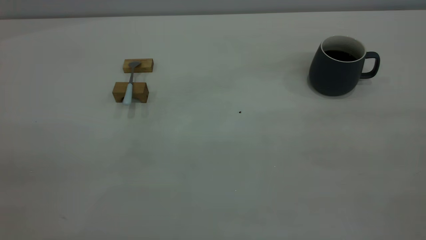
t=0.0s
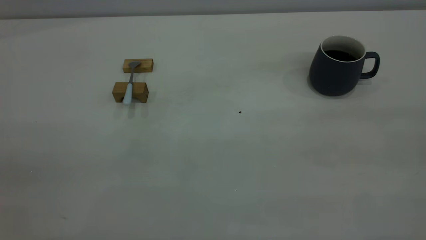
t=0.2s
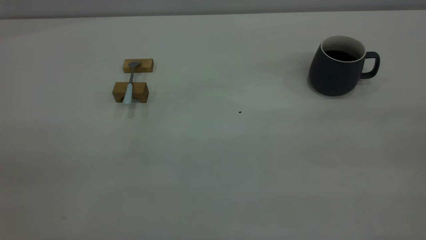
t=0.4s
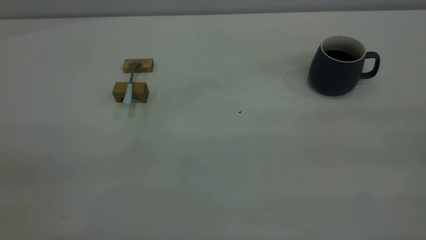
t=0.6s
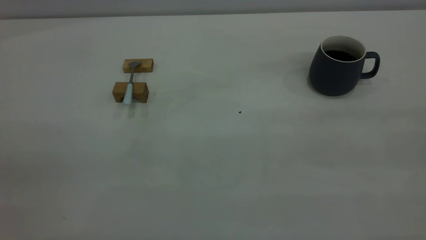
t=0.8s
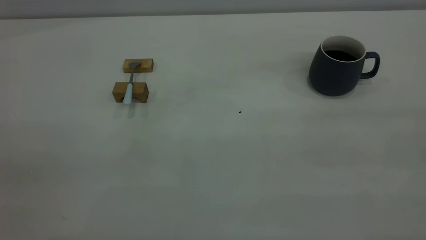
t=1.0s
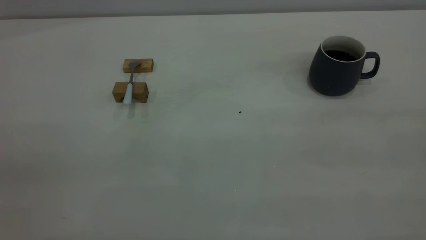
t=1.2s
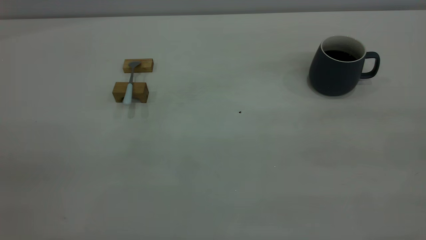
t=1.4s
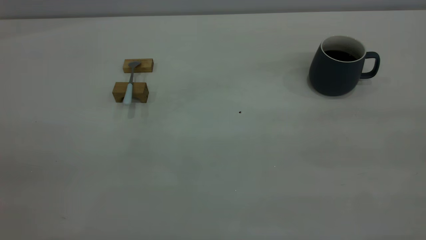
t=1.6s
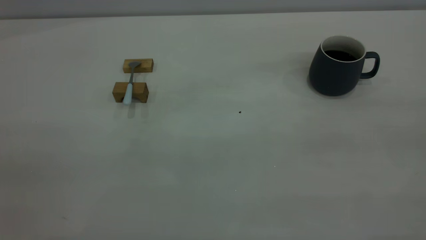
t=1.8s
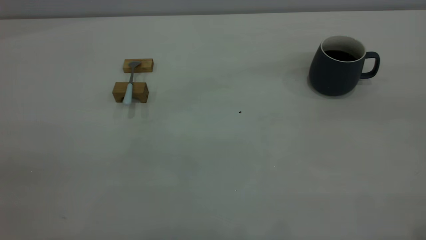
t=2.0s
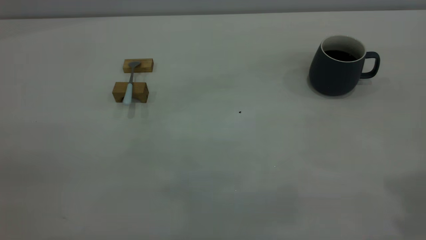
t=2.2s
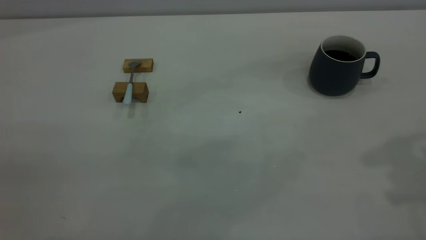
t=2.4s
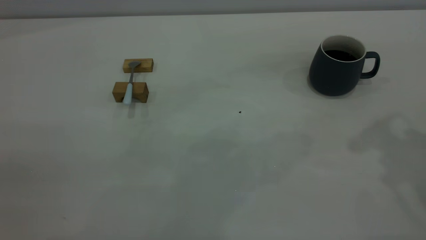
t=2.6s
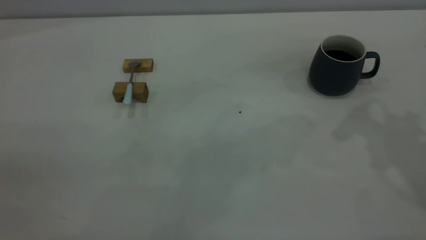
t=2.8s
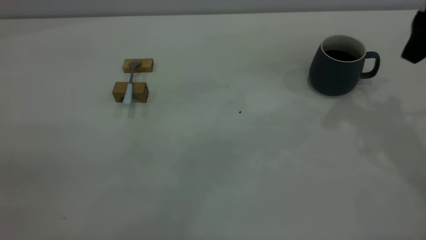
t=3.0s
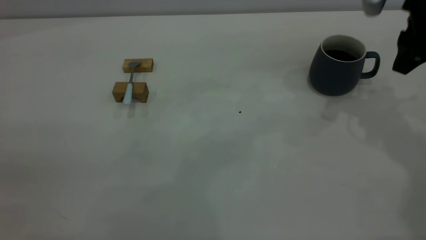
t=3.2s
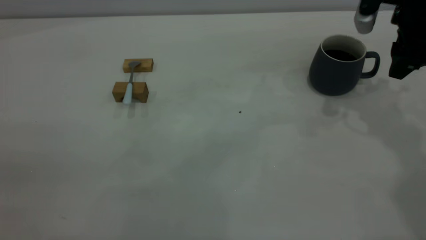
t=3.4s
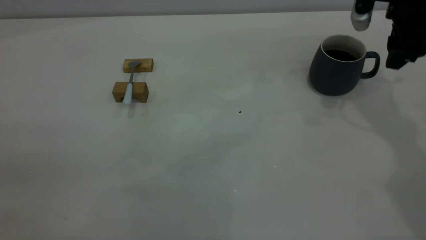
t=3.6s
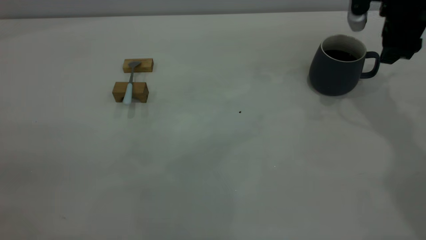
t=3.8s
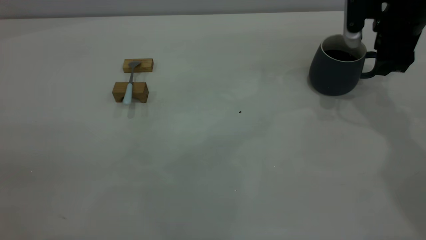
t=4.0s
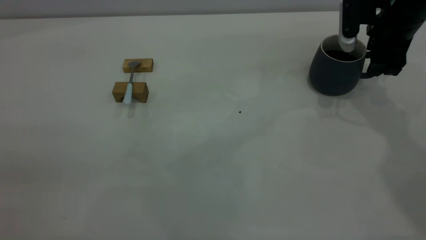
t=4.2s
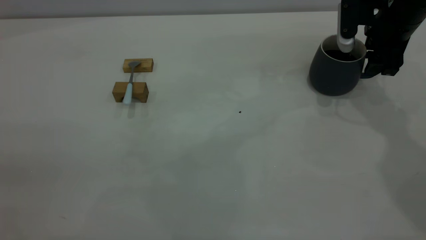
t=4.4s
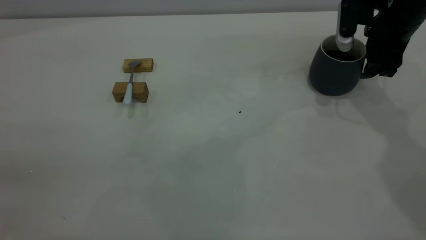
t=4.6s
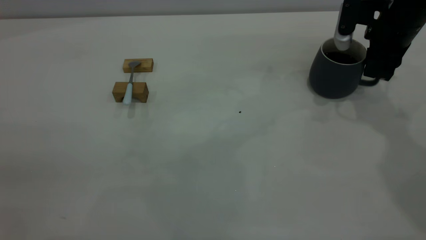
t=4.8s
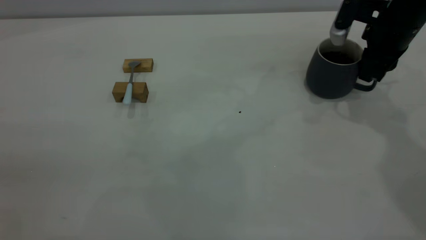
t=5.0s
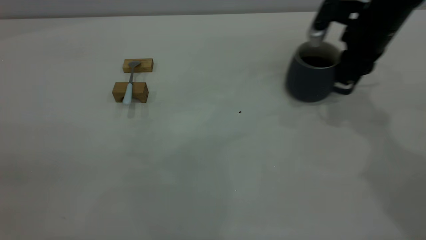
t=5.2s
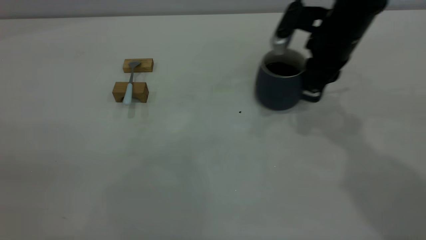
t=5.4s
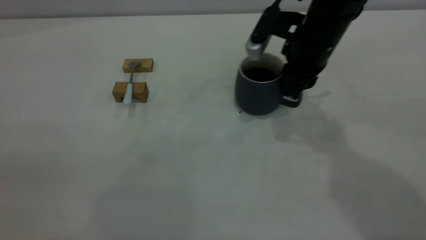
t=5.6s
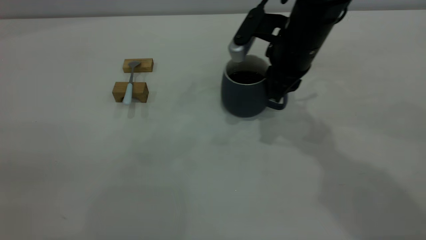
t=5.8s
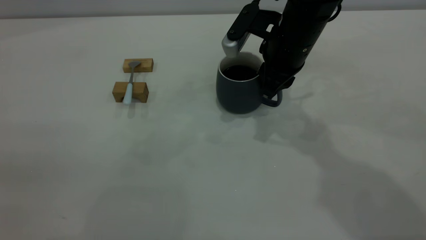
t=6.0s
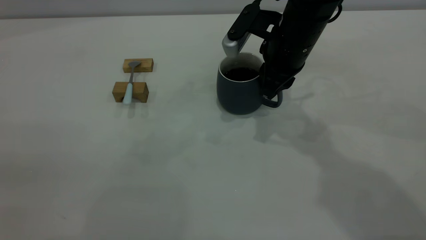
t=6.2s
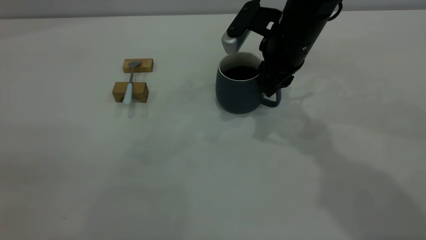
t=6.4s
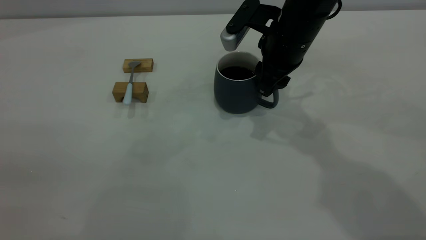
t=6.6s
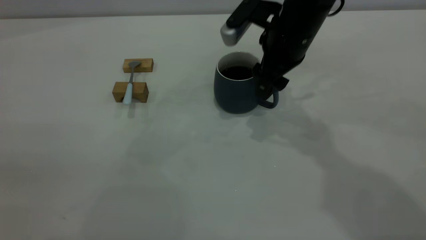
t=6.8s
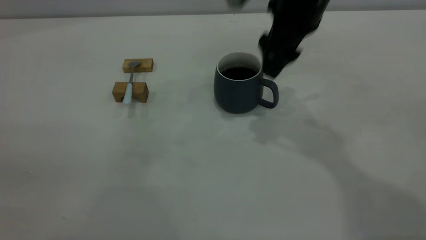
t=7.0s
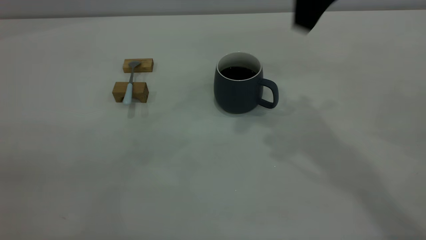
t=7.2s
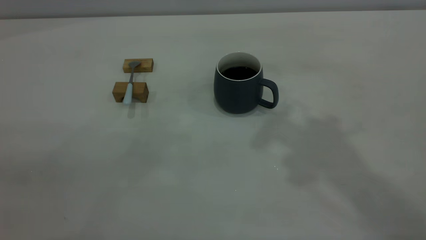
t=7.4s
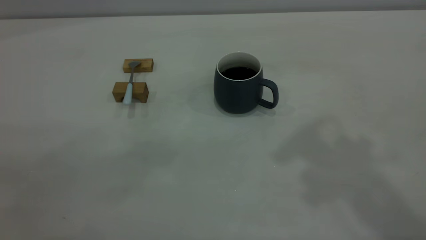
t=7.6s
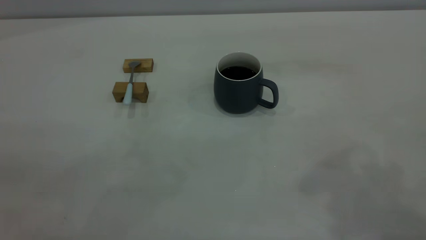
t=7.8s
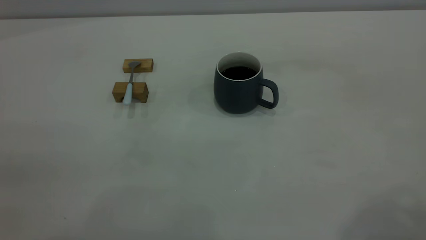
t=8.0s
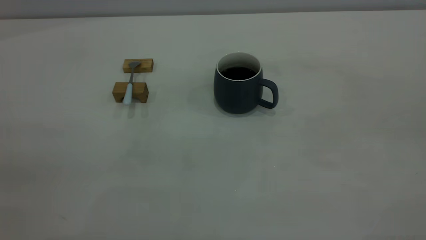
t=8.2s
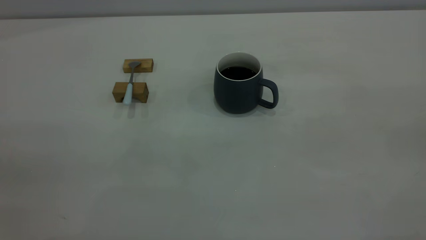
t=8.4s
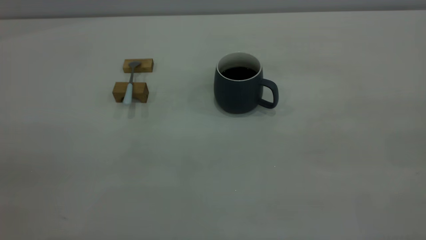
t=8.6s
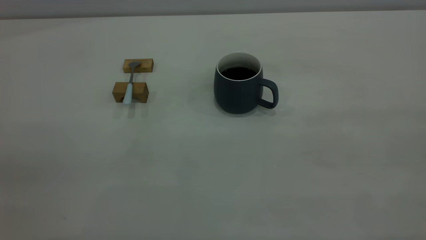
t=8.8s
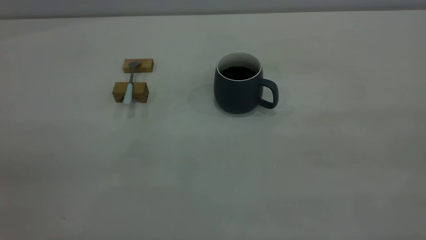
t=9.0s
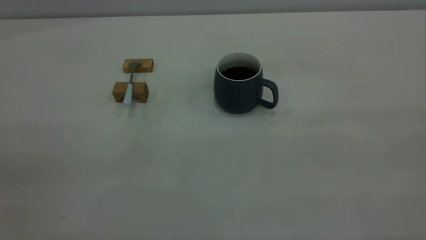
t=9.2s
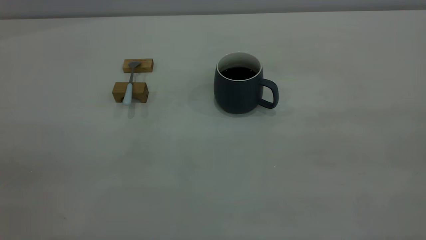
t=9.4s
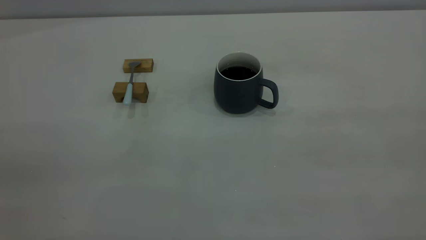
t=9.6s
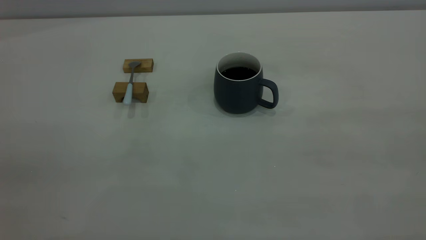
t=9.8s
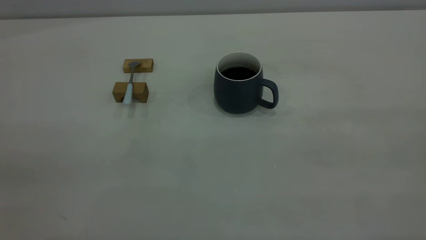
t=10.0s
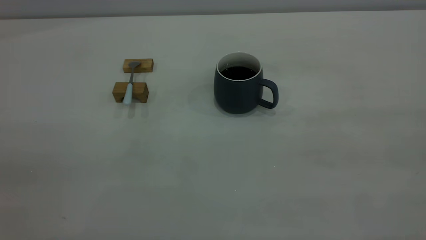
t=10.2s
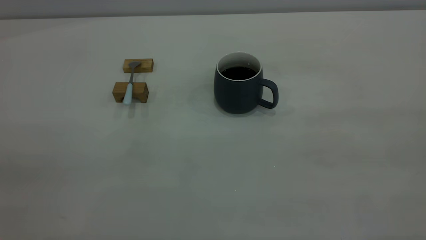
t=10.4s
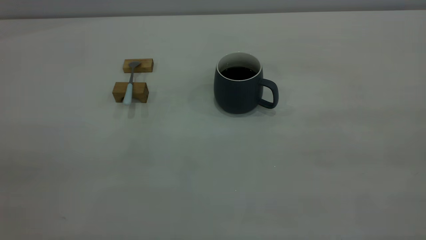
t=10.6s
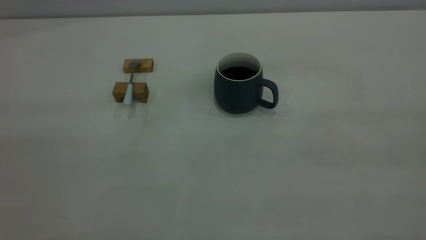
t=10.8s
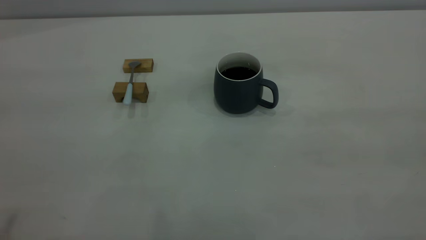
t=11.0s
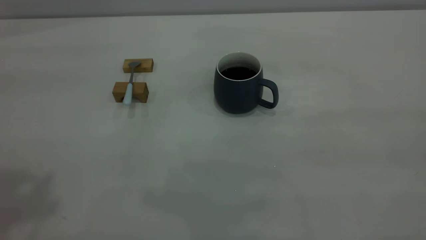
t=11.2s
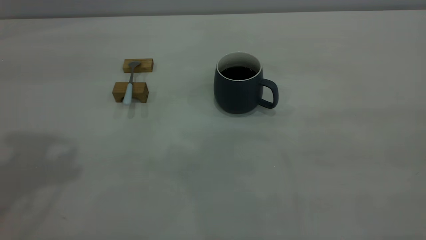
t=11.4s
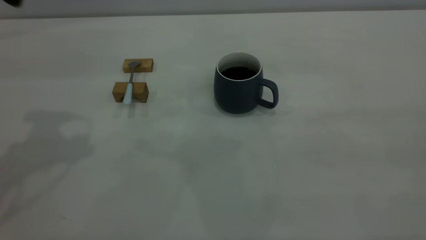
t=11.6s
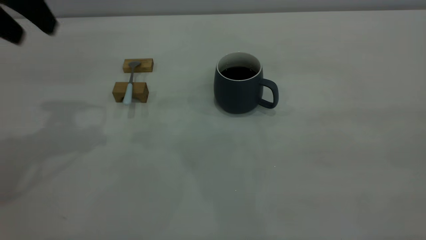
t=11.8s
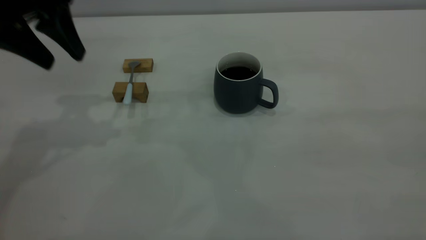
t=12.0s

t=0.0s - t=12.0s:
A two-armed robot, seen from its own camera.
Step, t=0.0s - t=7.0s: Move the cup with coffee to the center of view.
t=0.0s - t=1.6s: Both grippers stay put.
t=1.6s - t=3.0s: The right gripper travels forward by about 35 cm.
t=3.0s - t=4.4s: The right gripper moves downward and forward, roughly 15 cm.
t=4.4s - t=6.0s: The right gripper travels to the left by approximately 15 cm, and closes up.
t=6.0s - t=7.6s: The right gripper moves upward and backward, about 35 cm, and opens up.
t=10.4s - t=12.0s: The left gripper heads forward, covering approximately 35 cm.

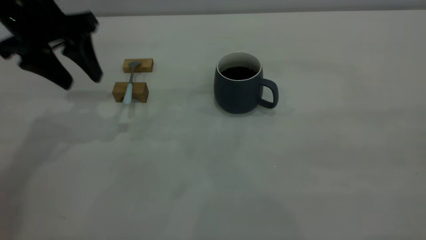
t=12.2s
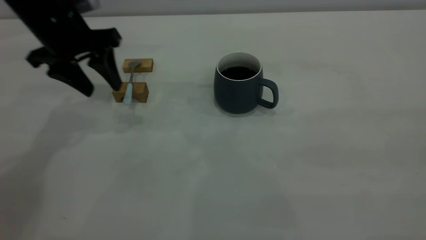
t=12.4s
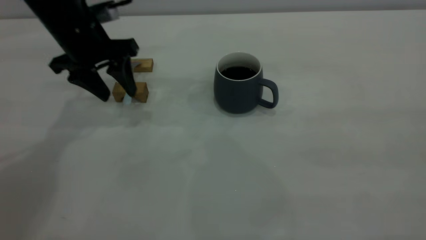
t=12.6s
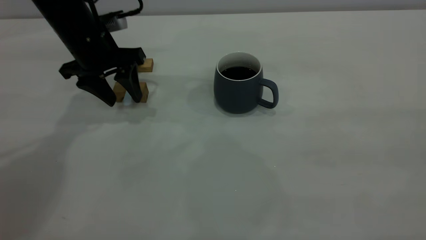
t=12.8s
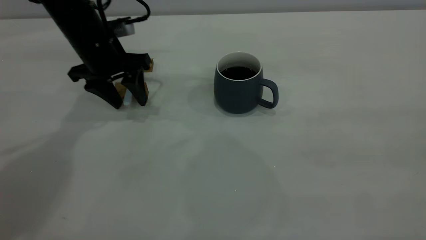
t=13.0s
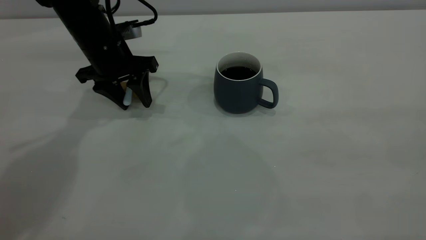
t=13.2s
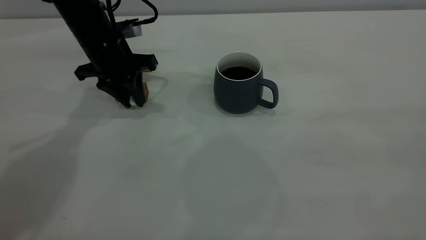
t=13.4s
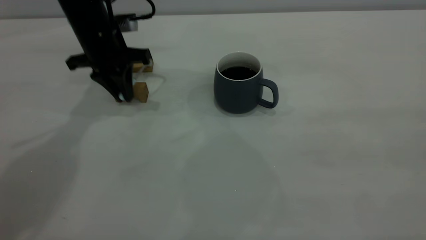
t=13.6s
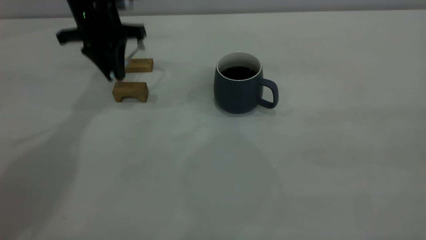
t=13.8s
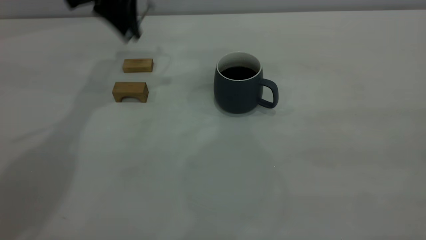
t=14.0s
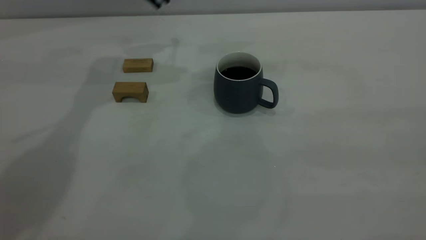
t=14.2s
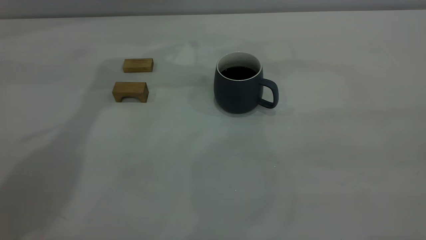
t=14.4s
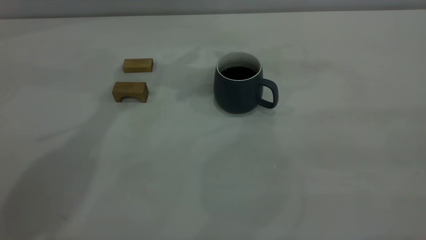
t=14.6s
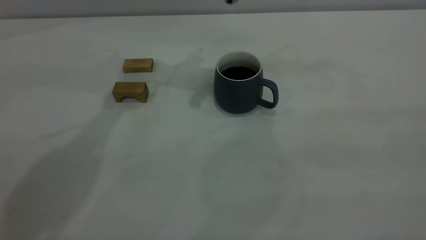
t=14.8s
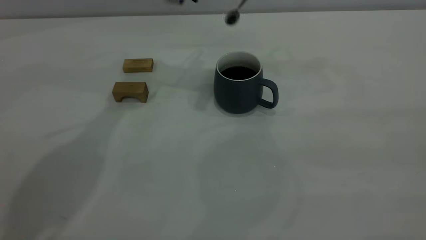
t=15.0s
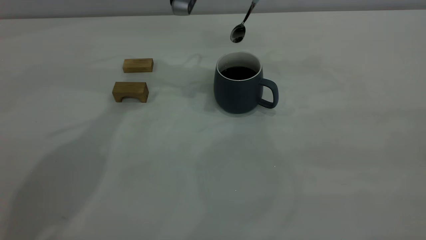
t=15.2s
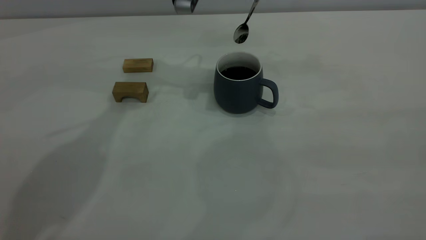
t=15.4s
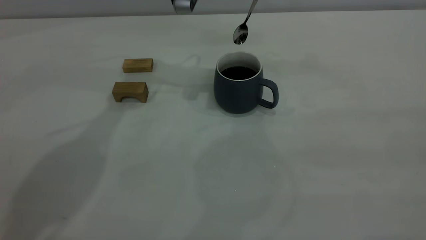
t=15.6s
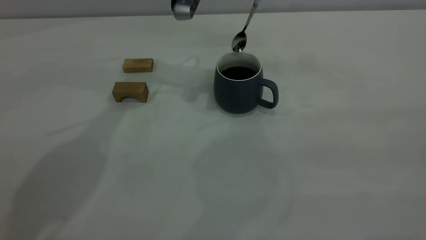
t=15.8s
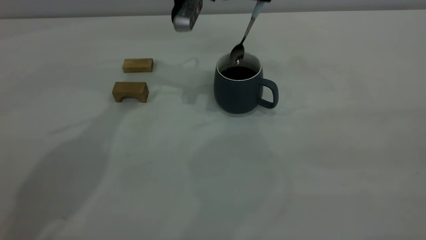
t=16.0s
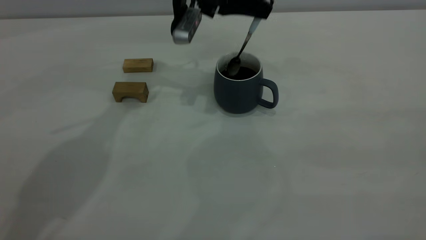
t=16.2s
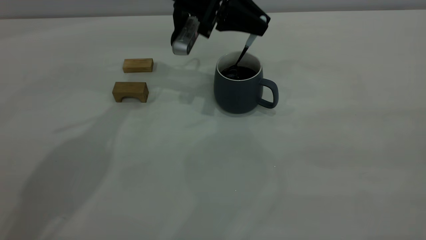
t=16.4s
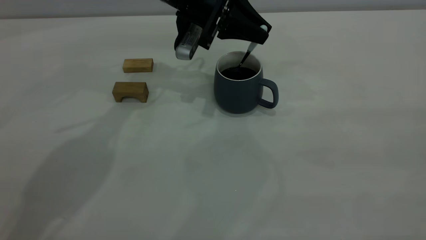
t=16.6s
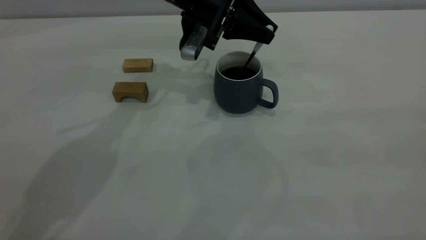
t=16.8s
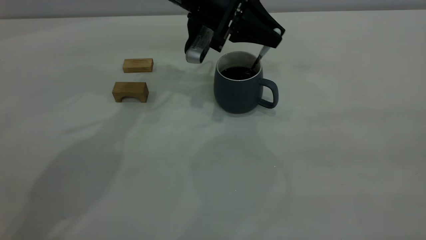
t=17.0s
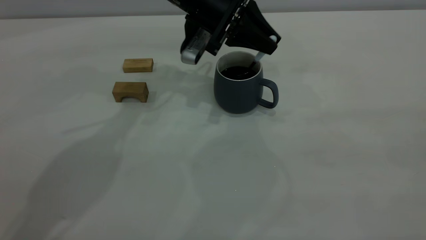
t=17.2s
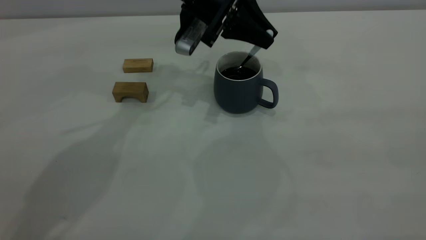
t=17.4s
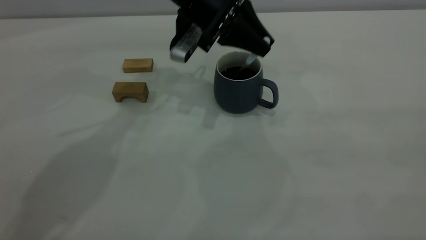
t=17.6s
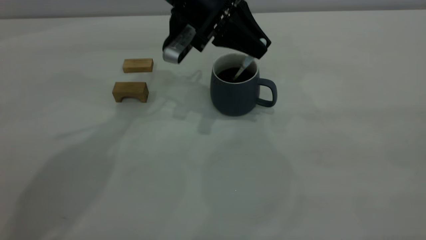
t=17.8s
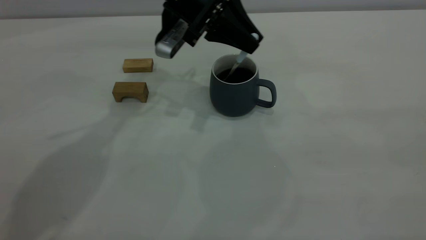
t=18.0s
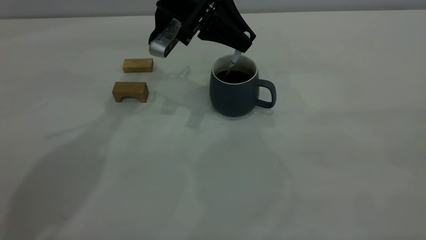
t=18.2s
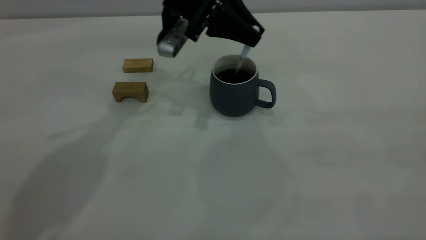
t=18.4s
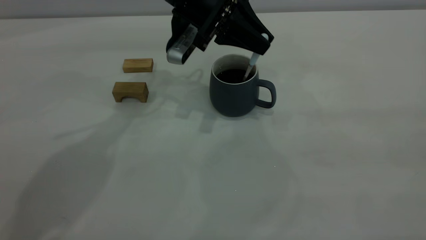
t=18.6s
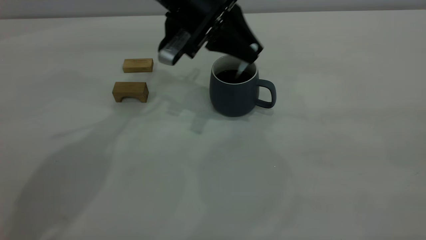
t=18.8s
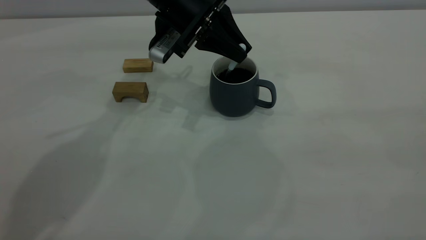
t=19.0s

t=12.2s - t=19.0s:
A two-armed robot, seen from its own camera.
t=12.2s - t=13.6s: The left gripper heads forward and downward, covering roughly 10 cm, and closes.
t=13.6s - t=15.0s: The left gripper goes some 15 cm to the right and upward.
t=15.0s - t=16.2s: The left gripper heads downward, covering roughly 5 cm.
t=16.2s - t=19.0s: The grippers stay close to where they were, moving slightly.
